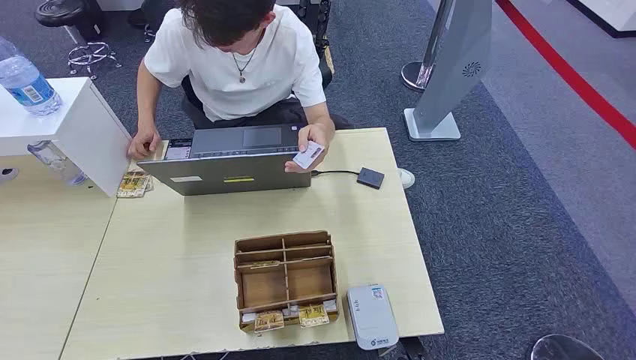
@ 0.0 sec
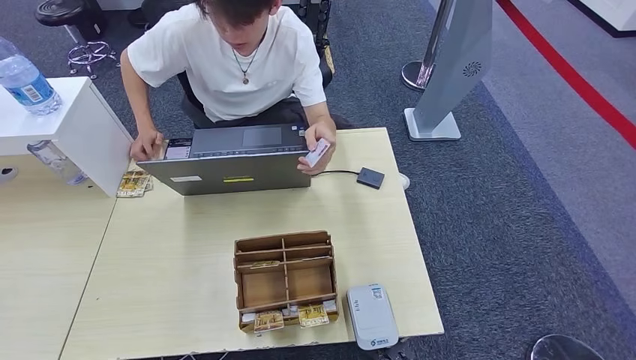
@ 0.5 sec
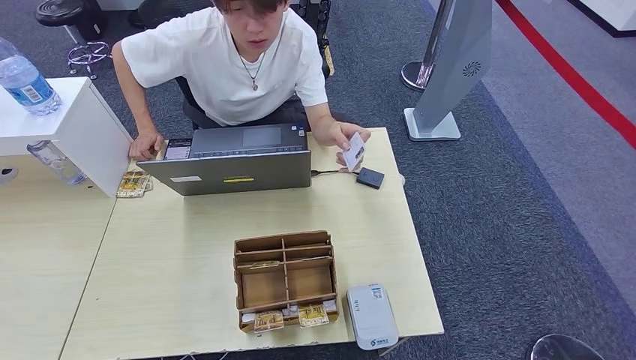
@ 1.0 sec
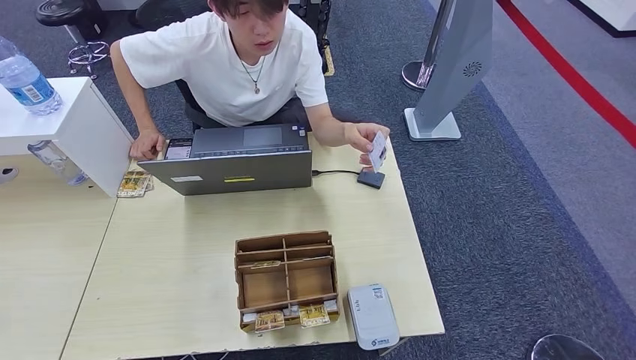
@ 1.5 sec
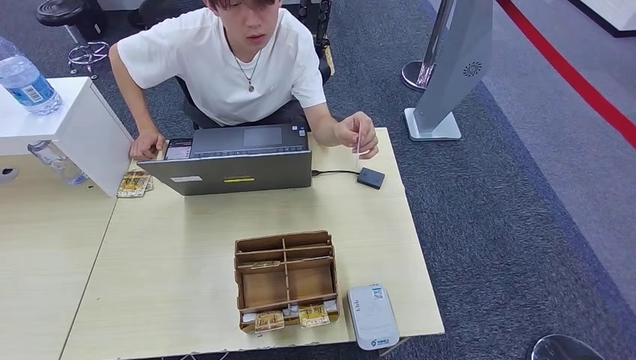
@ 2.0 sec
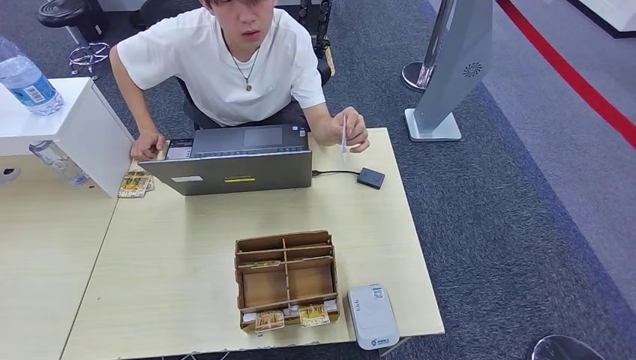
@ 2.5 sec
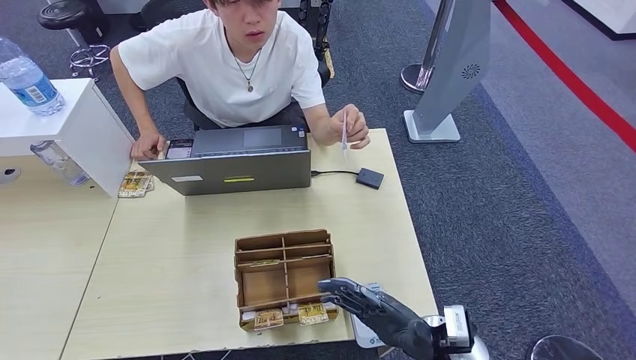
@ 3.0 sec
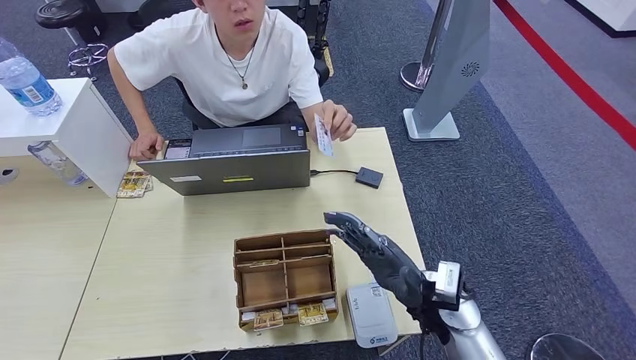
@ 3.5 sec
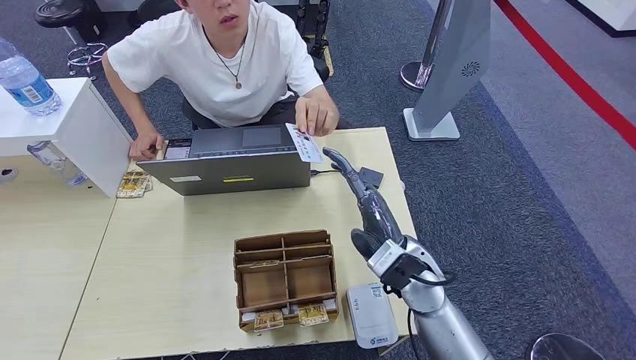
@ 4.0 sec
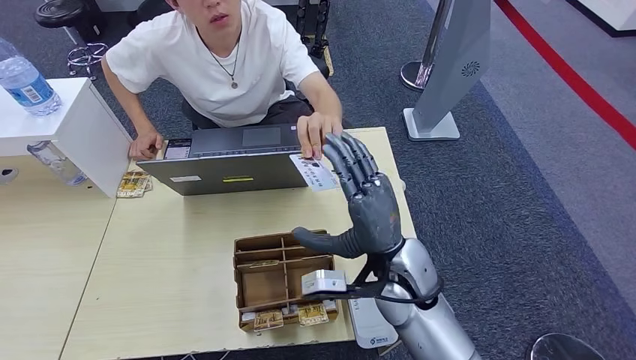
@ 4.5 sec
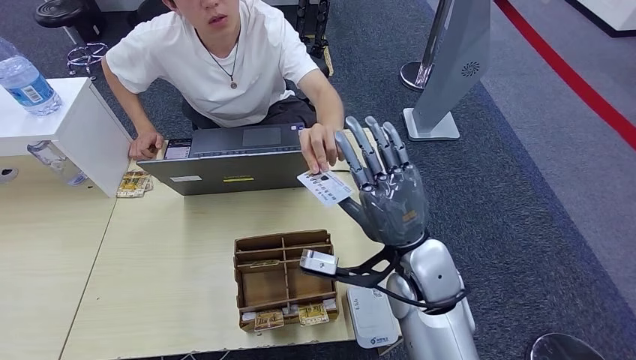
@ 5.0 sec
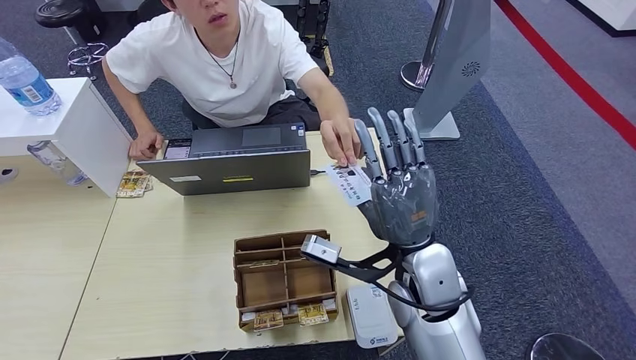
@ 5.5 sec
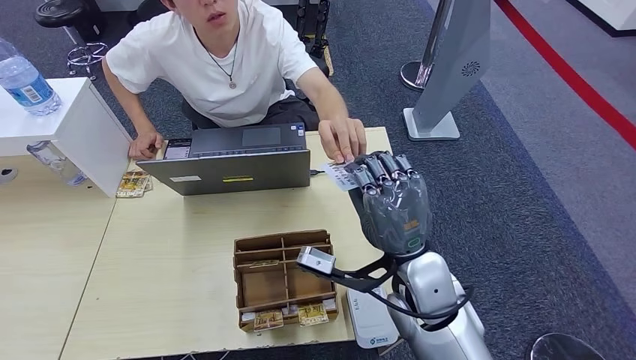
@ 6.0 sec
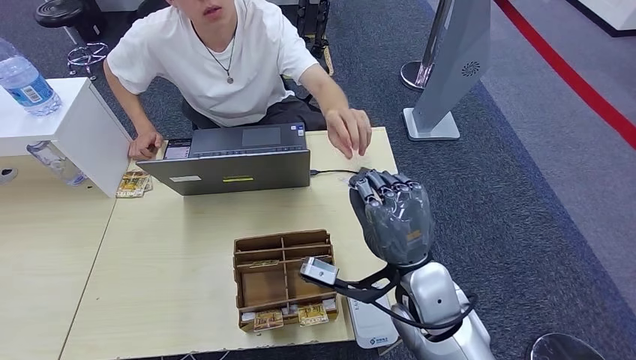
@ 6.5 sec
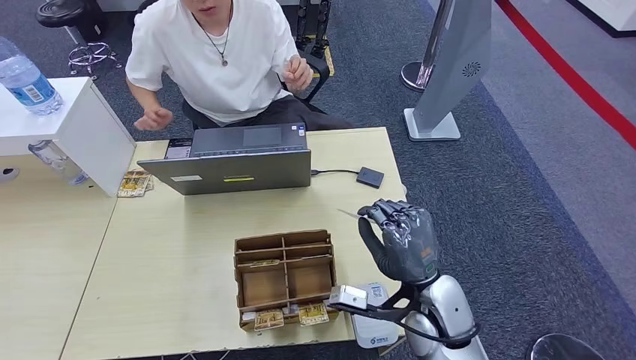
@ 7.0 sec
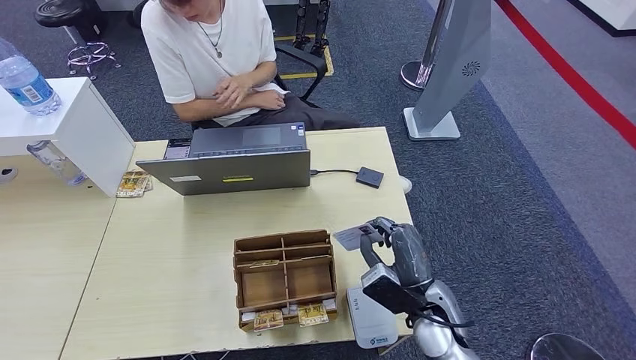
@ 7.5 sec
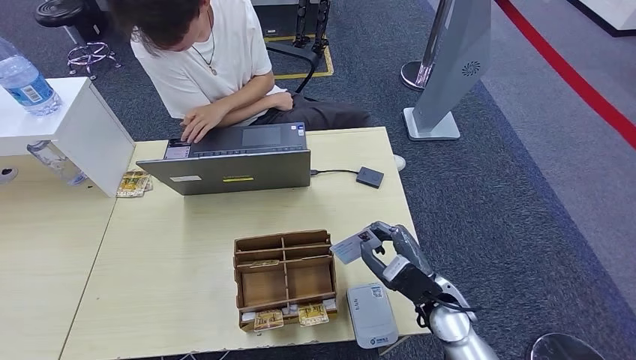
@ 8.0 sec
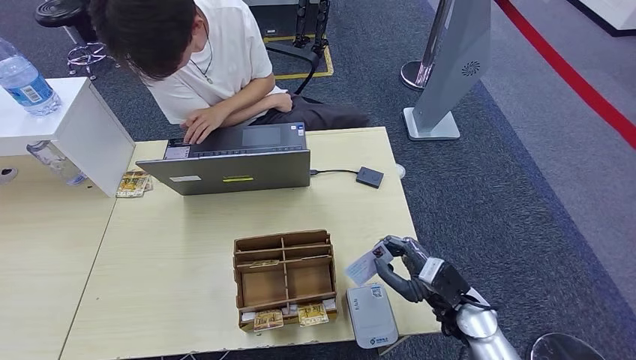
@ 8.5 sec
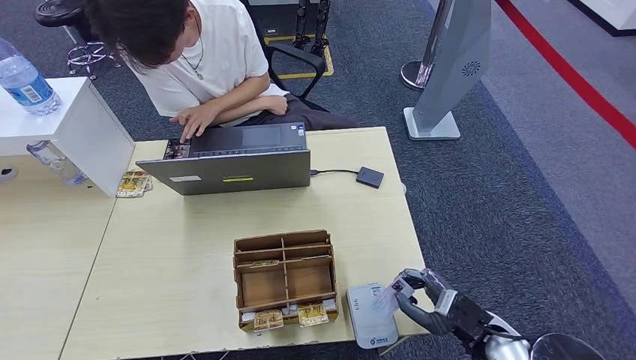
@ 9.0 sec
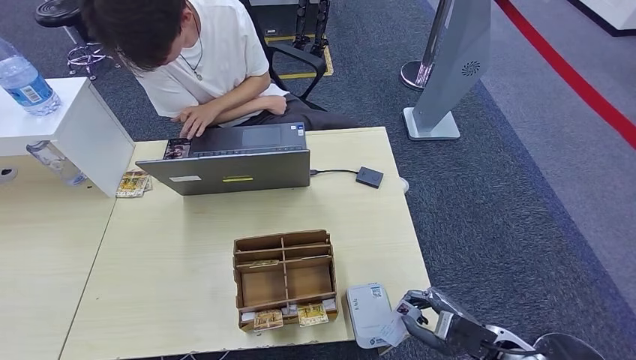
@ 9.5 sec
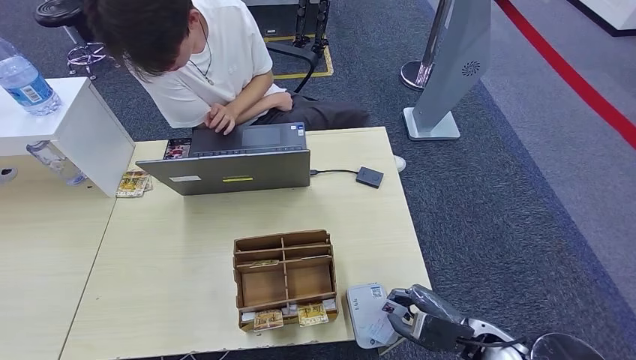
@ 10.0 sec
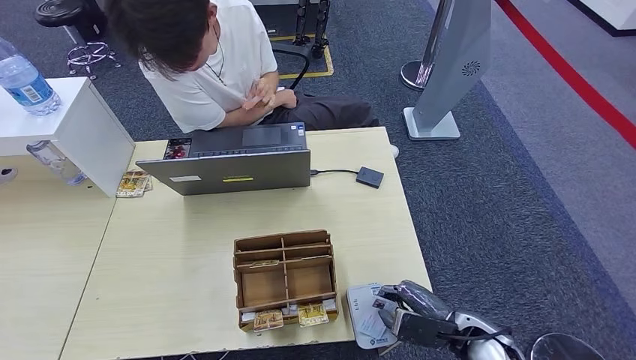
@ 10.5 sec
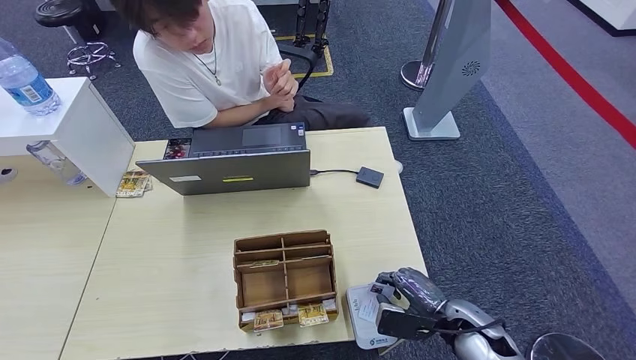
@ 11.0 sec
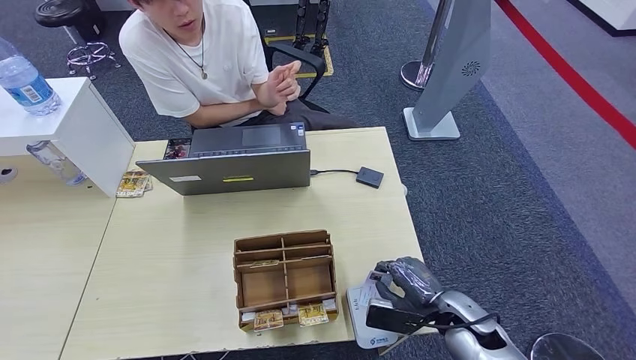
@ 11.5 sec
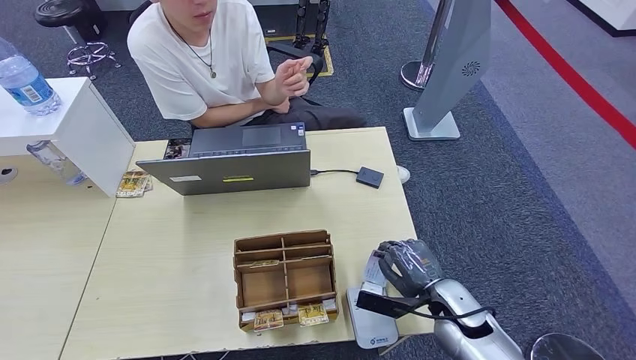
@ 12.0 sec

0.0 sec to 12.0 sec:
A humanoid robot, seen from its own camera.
Step, 0.0 sec to 6.5 sec: Take the ID card from the person's hand.
Step, 7.0 sec to 11.5 sec: Place the ID card on the card reader.
2.0 sec to 4.0 sec: The right hand heads forward, upward and to the left, covering approximately 35 cm.
4.0 sec to 6.0 sec: The right hand ends up approximately 5 cm from where it was.
6.0 sec to 8.0 sec: The right hand is displaced downward and to the right by approximately 15 cm.
8.0 sec to 10.0 sec: The right hand is displaced to the right and backward by approximately 10 cm.
10.0 sec to 12.0 sec: The right hand shifts roughly 5 cm forward.

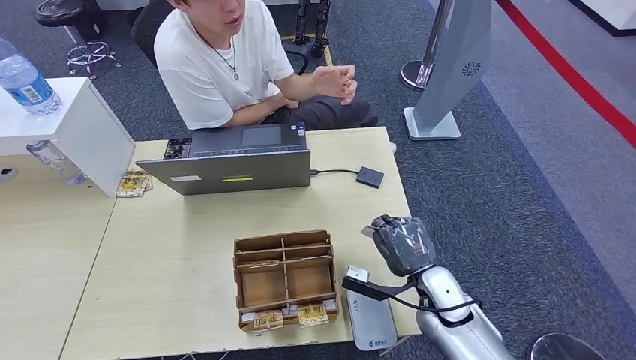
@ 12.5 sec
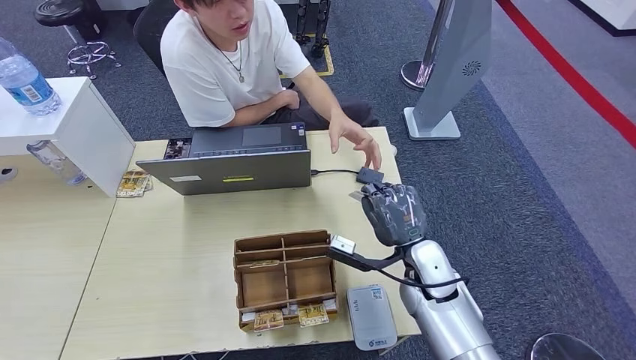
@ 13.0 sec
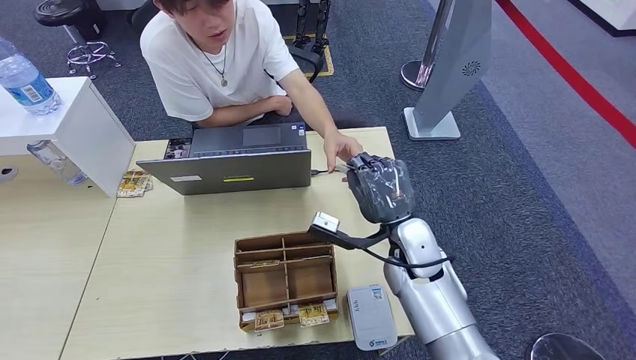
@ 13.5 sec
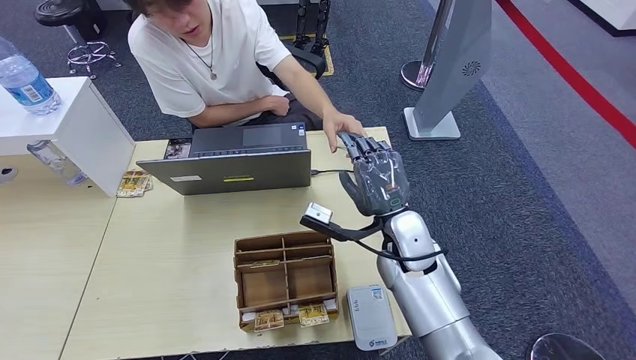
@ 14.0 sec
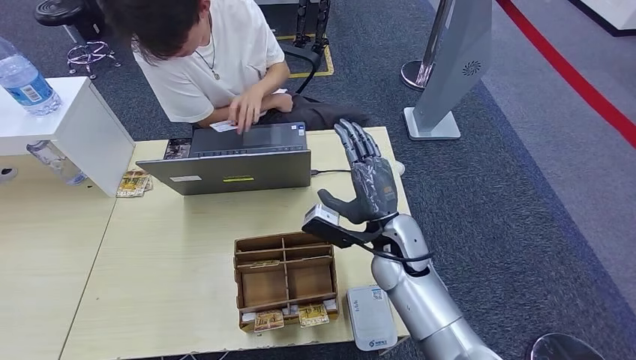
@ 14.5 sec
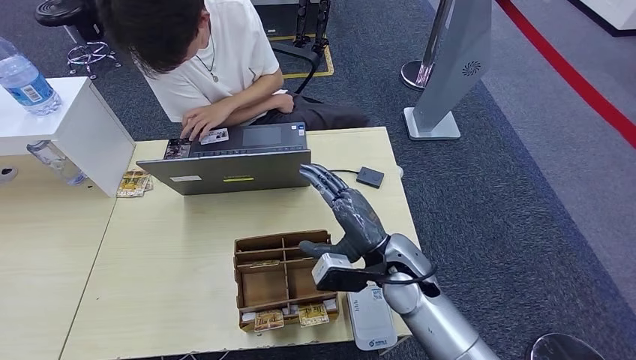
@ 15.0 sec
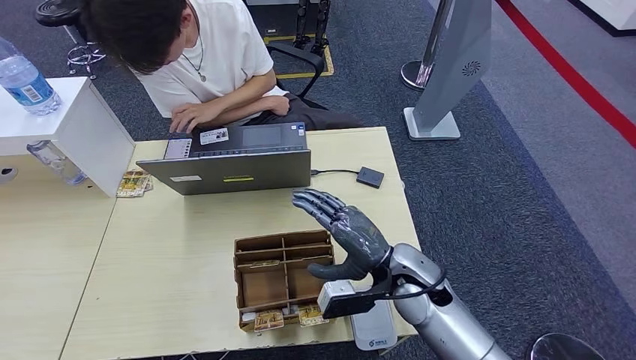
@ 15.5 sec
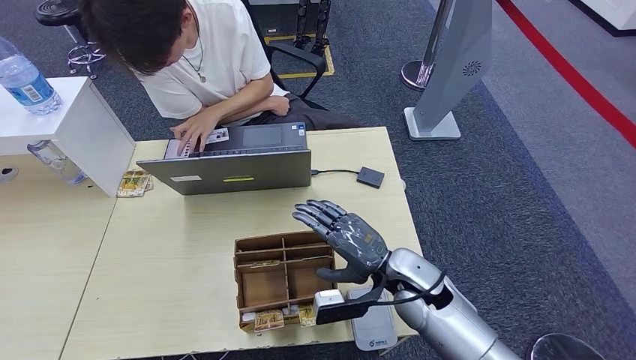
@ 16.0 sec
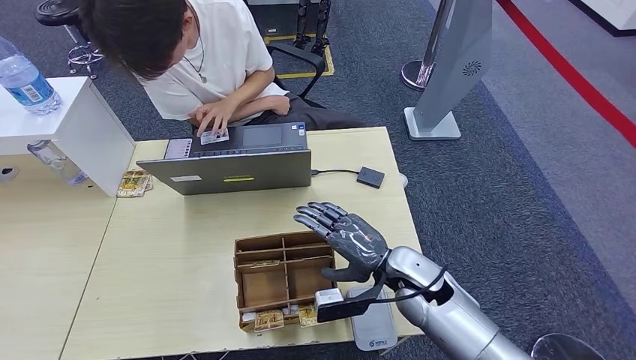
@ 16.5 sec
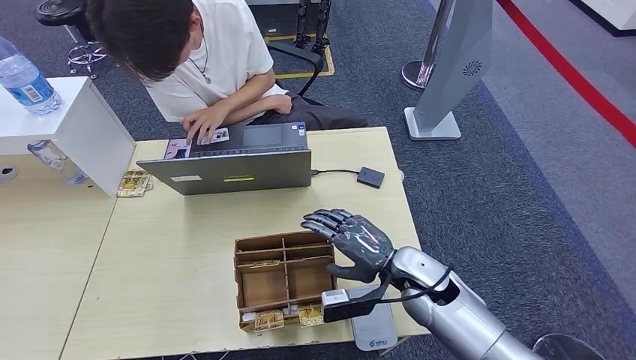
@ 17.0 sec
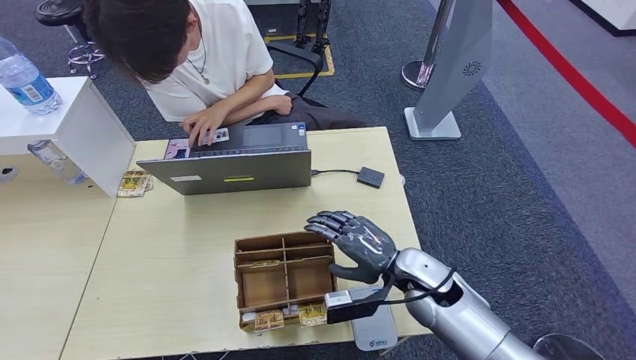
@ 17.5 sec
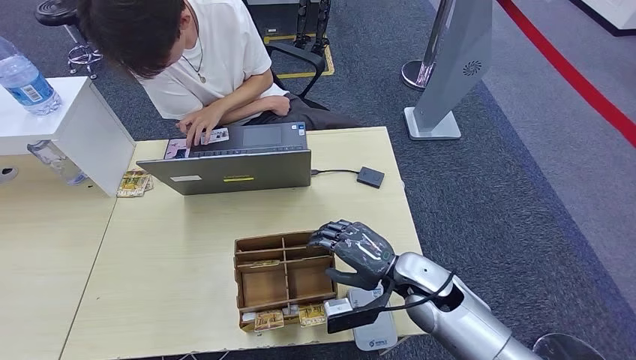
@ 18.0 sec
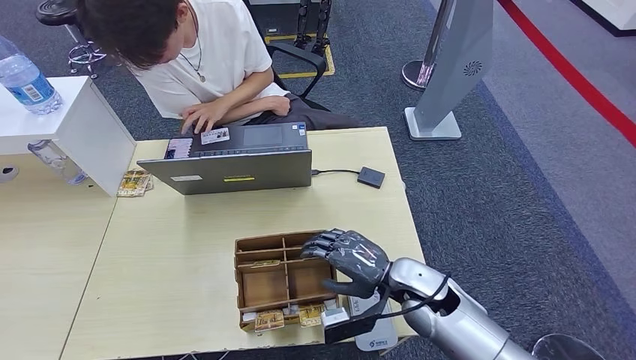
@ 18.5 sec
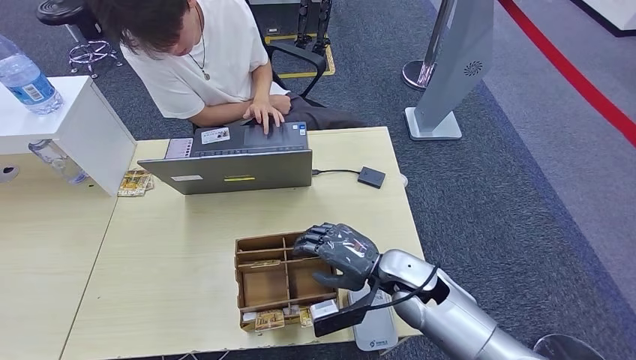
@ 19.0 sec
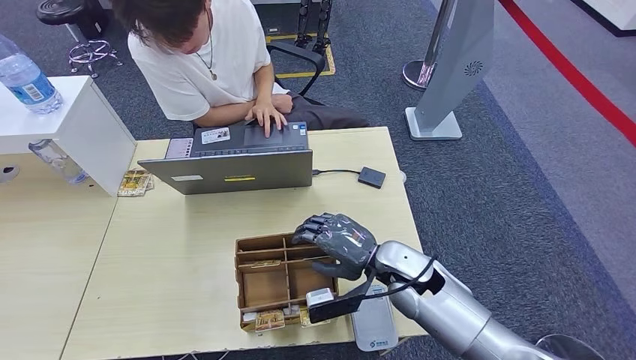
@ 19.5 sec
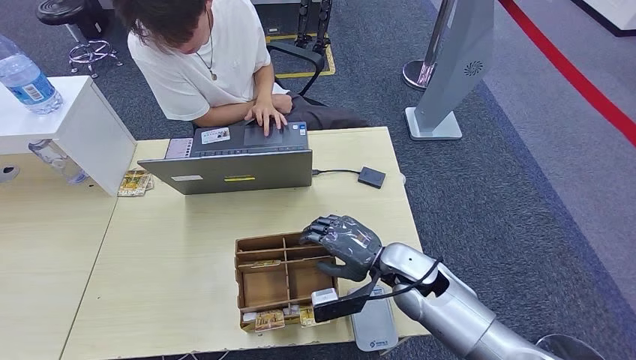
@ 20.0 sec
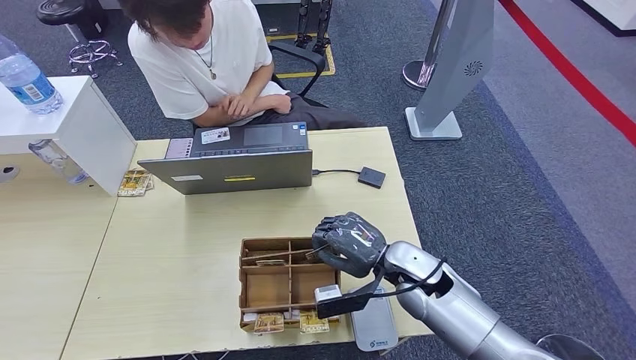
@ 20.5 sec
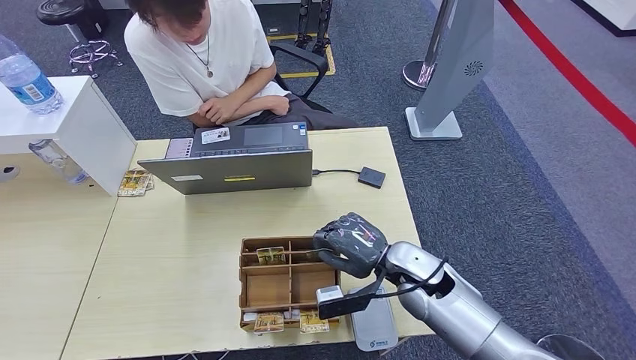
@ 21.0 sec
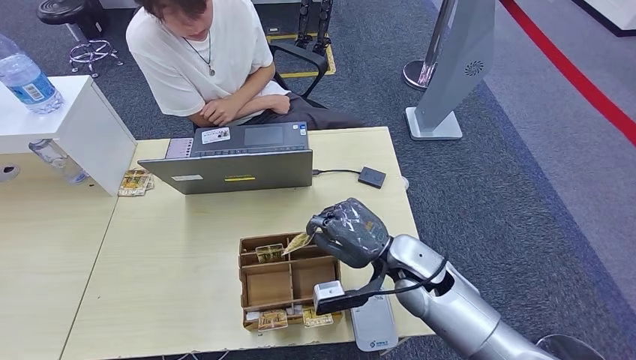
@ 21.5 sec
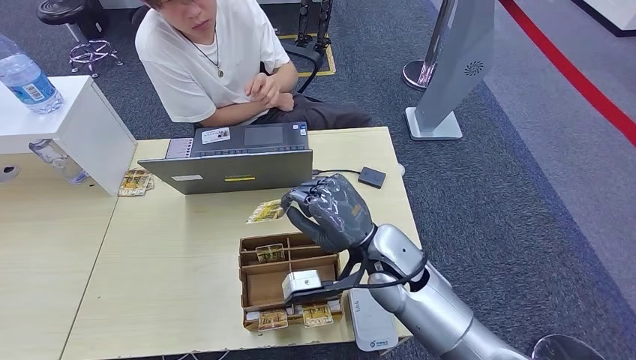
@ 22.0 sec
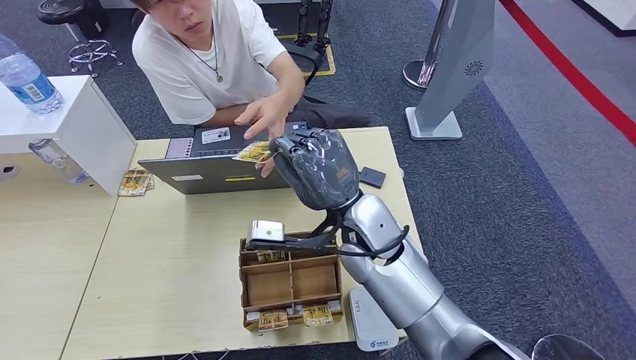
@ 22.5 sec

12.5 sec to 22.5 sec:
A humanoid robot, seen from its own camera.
Step, 12.5 sec to 14.5 sec: Hand the ID card to the person.
Step, 15.0 sec to 22.0 sec: Pick up the room key from the key card box.
12.5 sec to 14.5 sec: The right hand travels upward, to the left and forward by approximately 15 cm.
14.5 sec to 16.5 sec: The right hand moves about 5 cm.
18.5 sec to 20.5 sec: There are only small adjustments of the hands.
20.5 sec to 22.5 sec: The right hand is displaced upward and to the left by some 15 cm.
